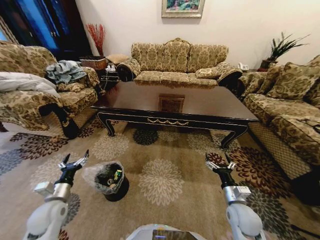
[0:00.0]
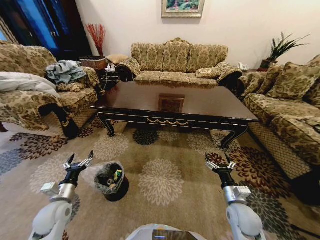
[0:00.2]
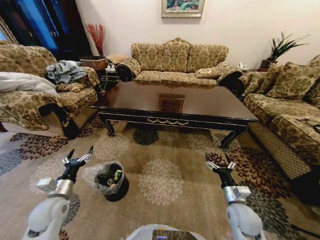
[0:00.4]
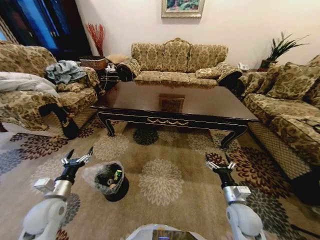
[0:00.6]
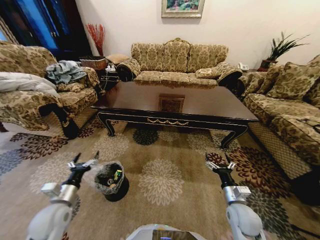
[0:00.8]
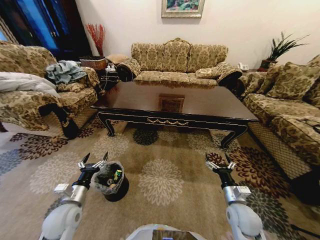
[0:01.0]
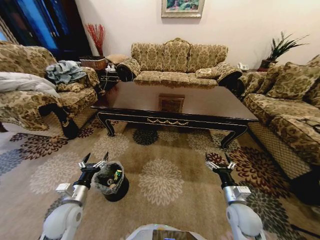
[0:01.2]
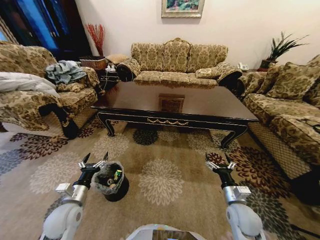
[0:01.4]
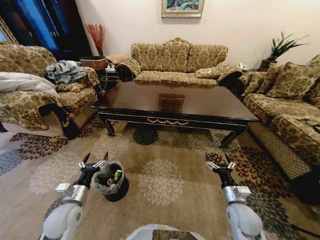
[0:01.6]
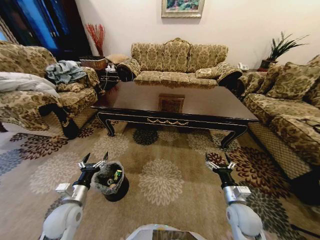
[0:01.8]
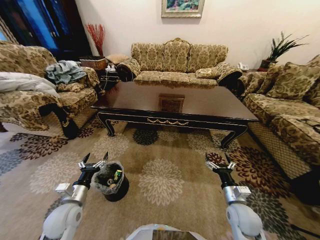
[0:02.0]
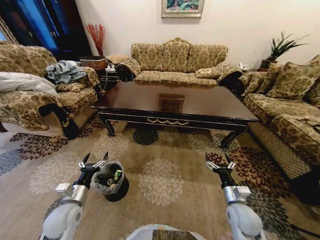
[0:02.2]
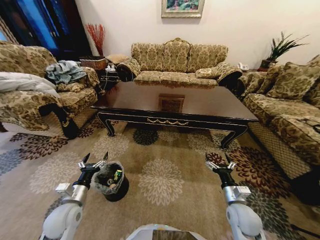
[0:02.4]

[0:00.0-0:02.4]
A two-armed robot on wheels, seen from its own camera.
Task of the whole recording: Move to the front of the table and place the trash on the table into the trash bin.
0:00.0 to 0:01.2: The left gripper shifts approximately 5 cm to the right.
0:01.2 to 0:02.4: The two grippers keep their place.

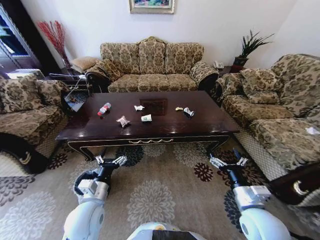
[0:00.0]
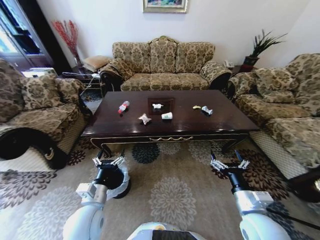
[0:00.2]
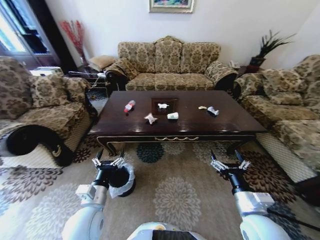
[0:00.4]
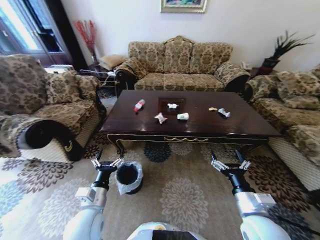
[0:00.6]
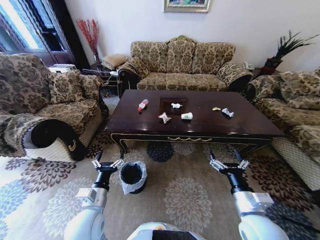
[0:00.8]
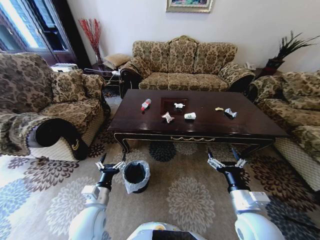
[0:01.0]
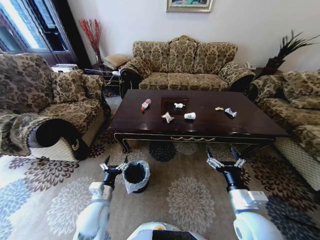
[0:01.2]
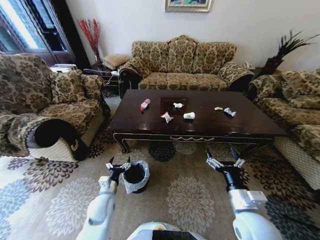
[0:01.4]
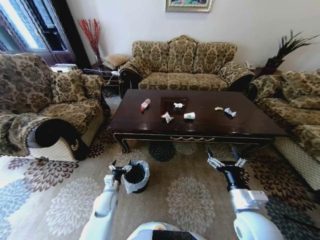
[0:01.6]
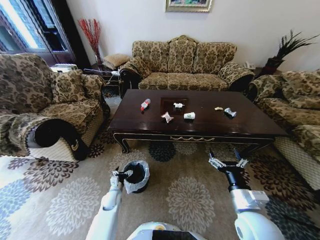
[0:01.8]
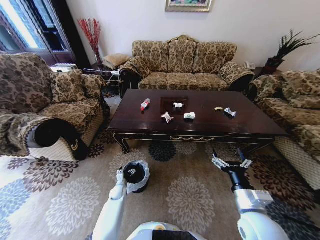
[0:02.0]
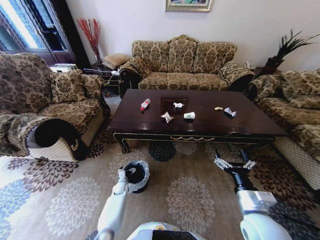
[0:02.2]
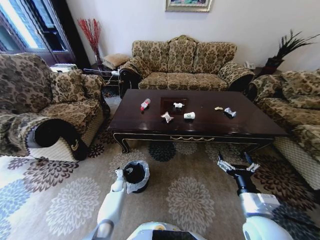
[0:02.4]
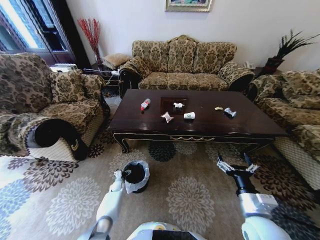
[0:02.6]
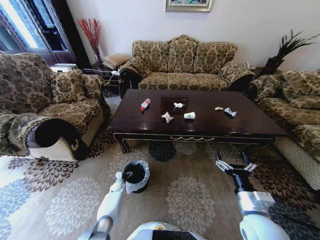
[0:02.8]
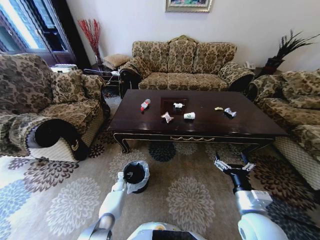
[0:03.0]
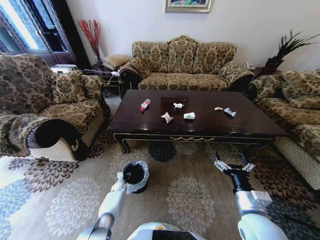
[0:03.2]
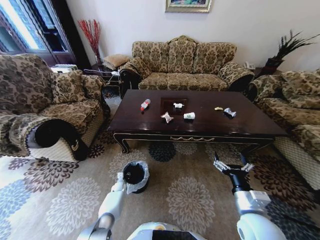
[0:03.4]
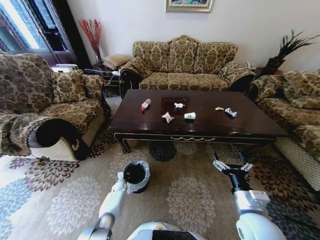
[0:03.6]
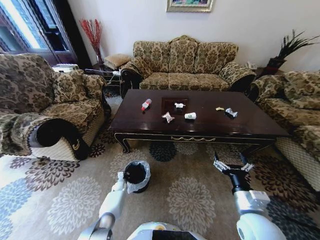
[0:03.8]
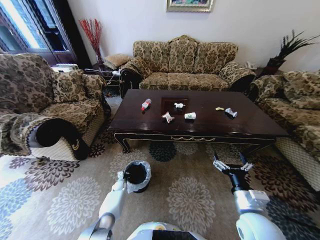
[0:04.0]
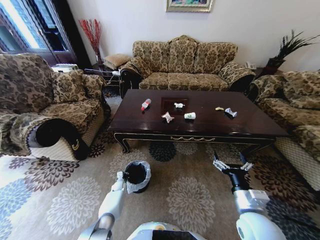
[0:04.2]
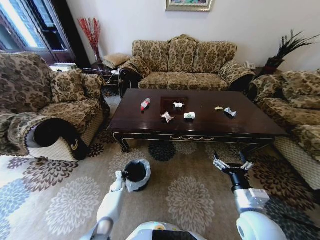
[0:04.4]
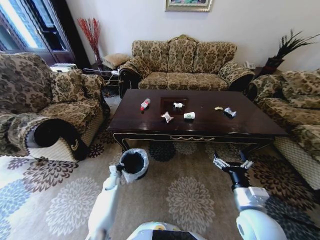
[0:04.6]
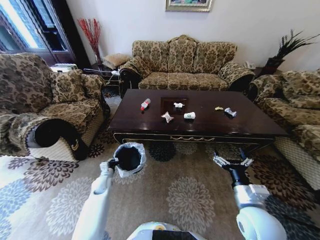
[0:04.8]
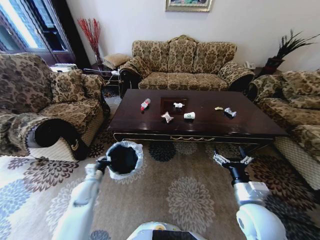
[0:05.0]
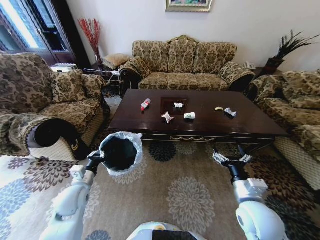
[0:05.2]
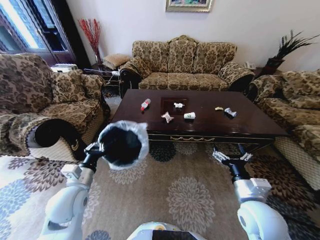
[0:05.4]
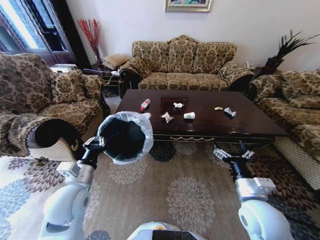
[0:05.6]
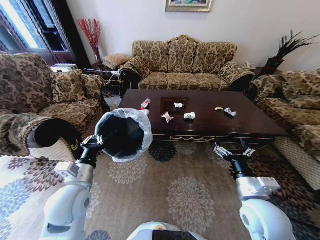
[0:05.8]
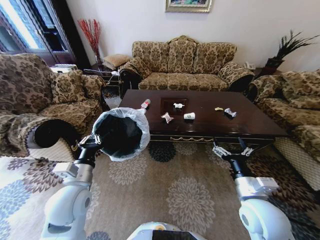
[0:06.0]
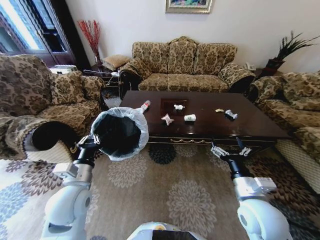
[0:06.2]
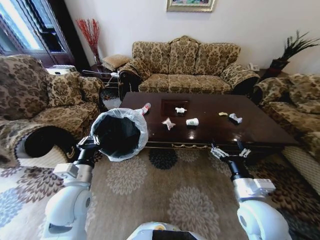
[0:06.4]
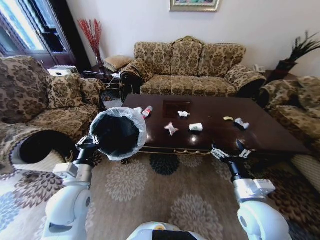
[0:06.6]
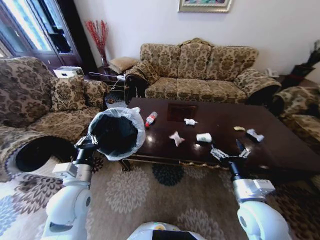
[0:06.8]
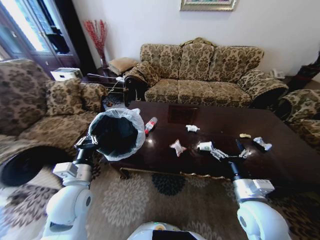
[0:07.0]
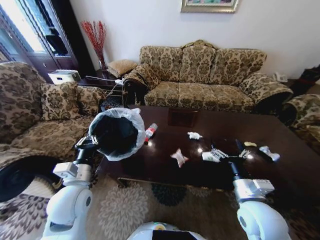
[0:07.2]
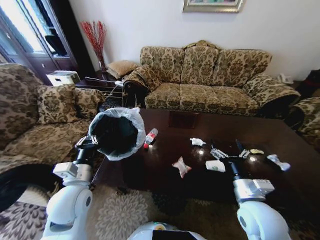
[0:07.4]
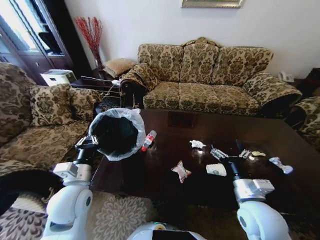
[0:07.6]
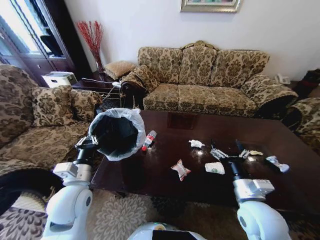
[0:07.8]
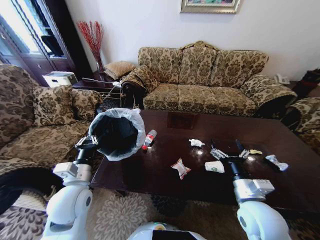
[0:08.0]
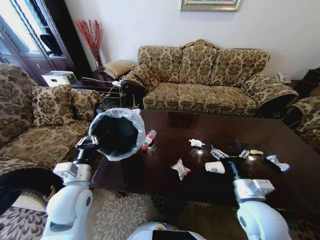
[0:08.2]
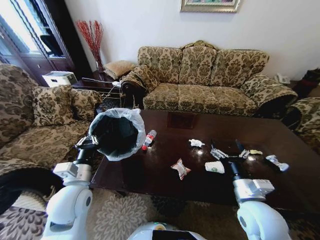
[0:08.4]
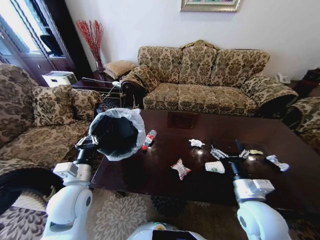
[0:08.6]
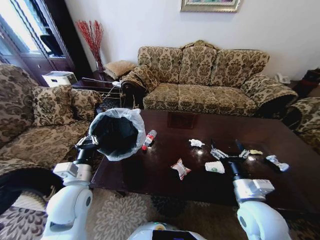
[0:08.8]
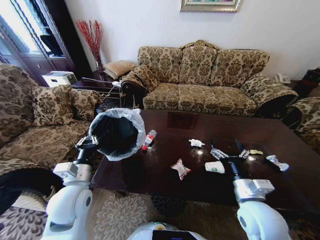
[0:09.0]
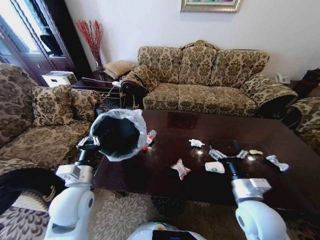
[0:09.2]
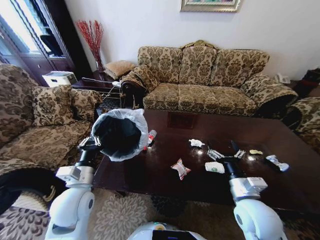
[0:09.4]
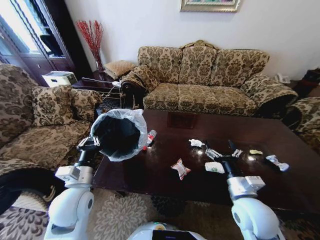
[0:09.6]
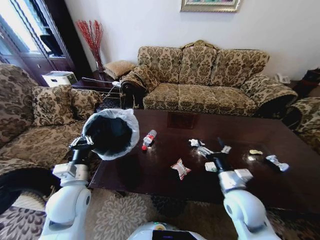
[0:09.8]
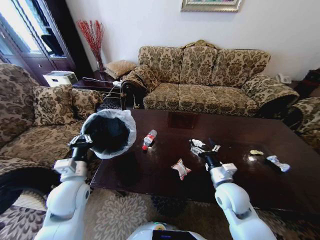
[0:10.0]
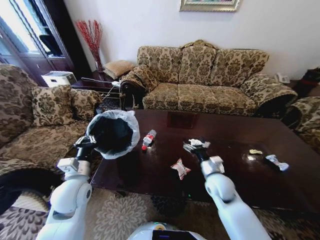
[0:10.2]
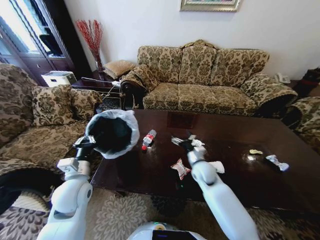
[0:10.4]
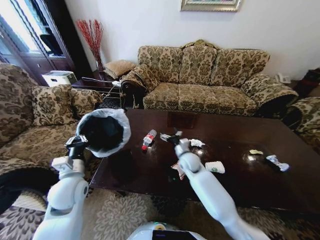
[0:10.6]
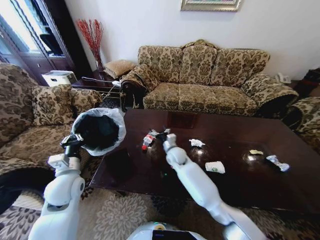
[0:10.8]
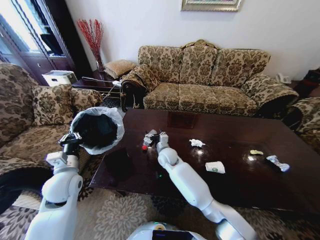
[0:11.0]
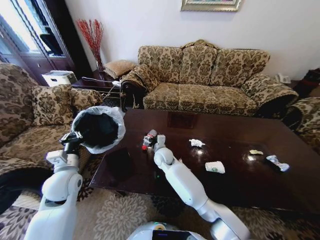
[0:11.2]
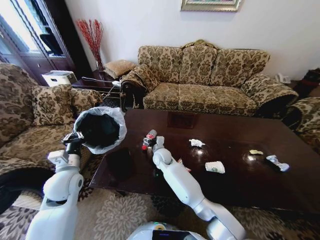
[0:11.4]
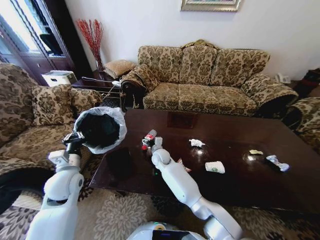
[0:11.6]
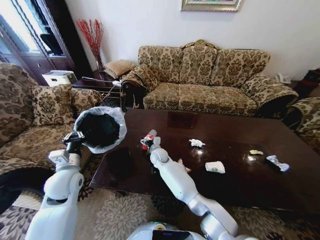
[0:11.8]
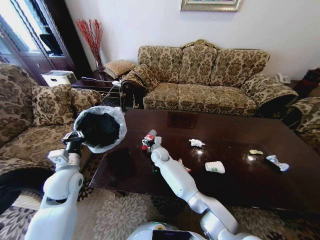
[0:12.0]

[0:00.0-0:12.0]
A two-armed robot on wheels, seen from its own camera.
Task of the whole recording: Move to the front of the table and place the trash on the table into the trash bin.
0:01.6 to 0:03.0: The left gripper shifts about 20 cm downward and forward.
0:03.0 to 0:04.4: The left gripper closes its fingers.
0:04.4 to 0:06.0: The left gripper heads upward and backward, covering some 50 cm.
0:07.6 to 0:09.0: Both grippers stay put.
0:09.0 to 0:10.4: The right gripper heads forward, to the left and downward, covering about 20 cm.
0:10.4 to 0:12.0: The right gripper is displaced to the left and forward by about 20 cm; the left gripper shifts by about 5 cm.

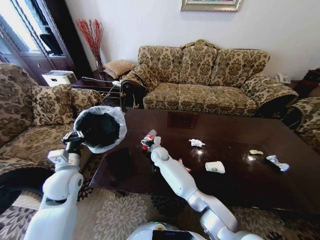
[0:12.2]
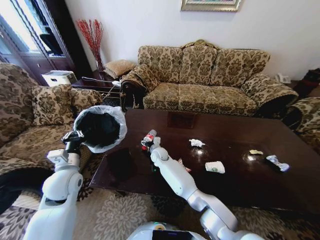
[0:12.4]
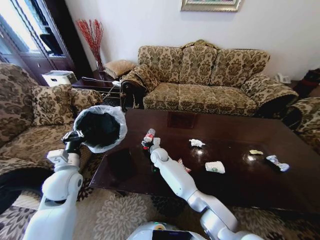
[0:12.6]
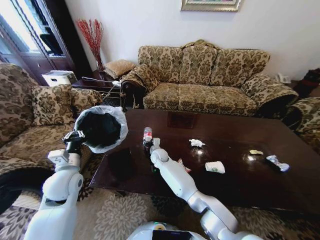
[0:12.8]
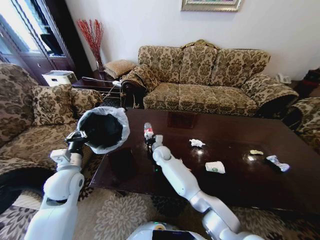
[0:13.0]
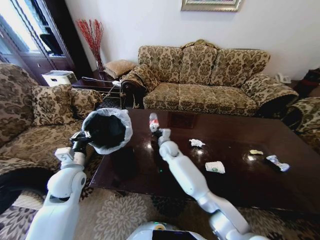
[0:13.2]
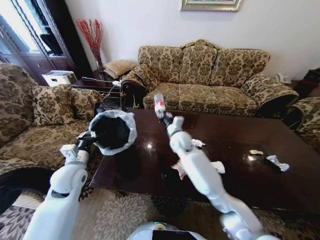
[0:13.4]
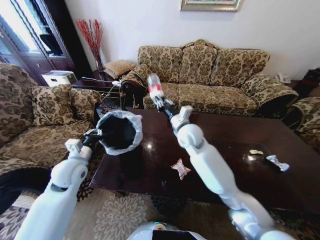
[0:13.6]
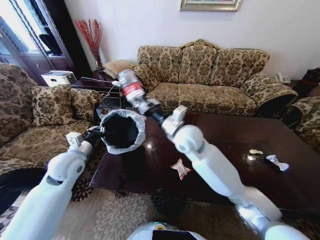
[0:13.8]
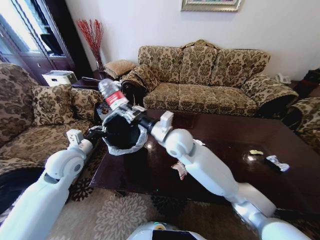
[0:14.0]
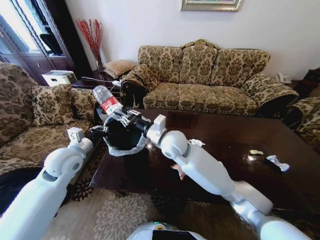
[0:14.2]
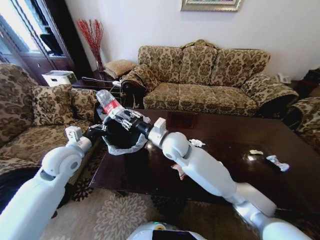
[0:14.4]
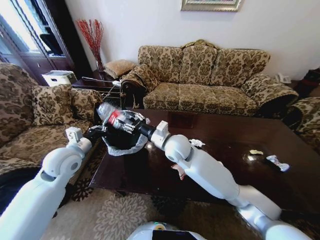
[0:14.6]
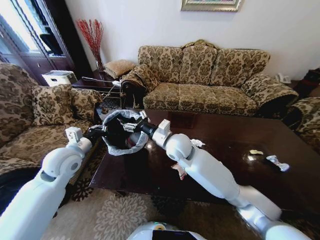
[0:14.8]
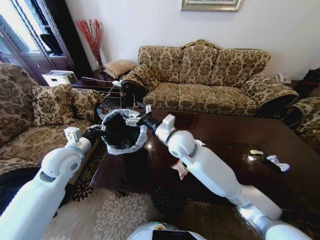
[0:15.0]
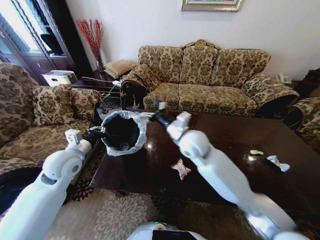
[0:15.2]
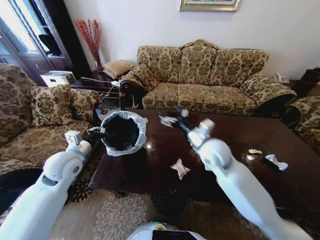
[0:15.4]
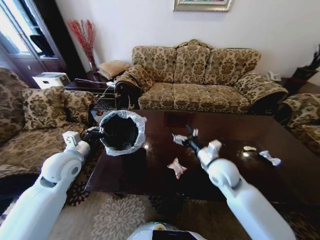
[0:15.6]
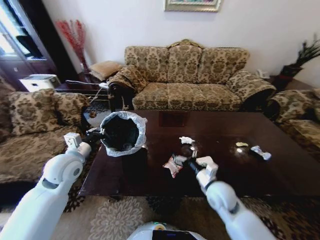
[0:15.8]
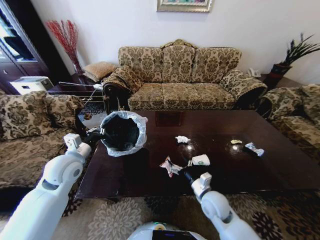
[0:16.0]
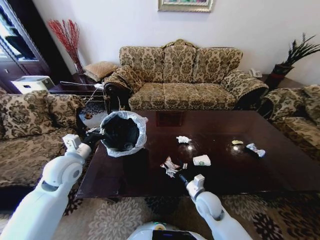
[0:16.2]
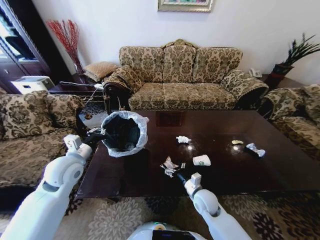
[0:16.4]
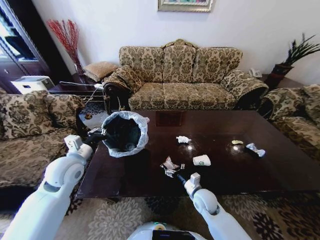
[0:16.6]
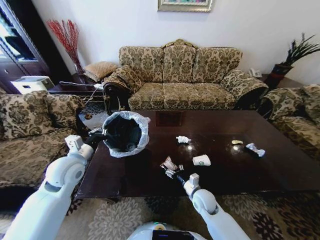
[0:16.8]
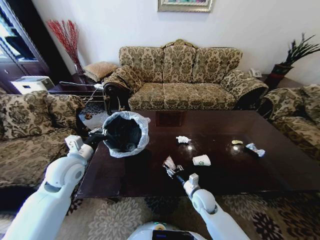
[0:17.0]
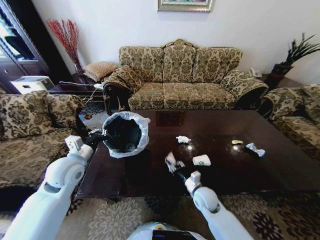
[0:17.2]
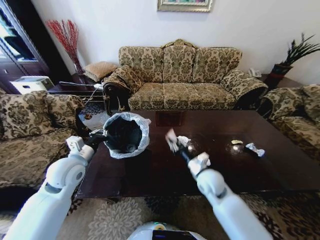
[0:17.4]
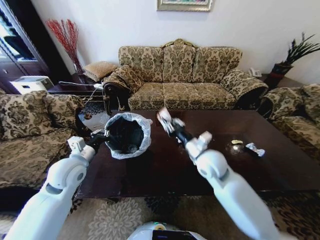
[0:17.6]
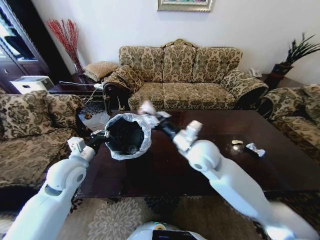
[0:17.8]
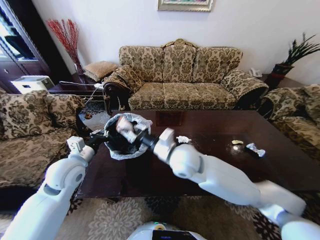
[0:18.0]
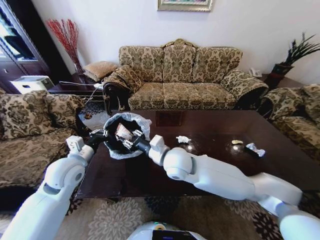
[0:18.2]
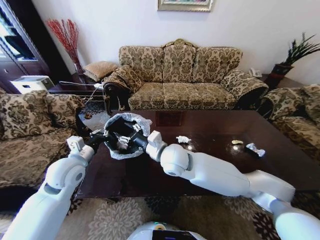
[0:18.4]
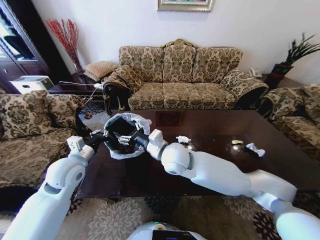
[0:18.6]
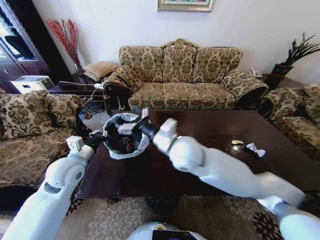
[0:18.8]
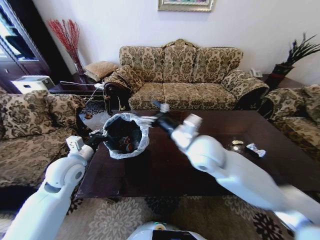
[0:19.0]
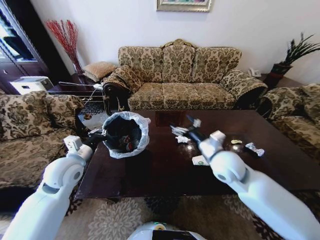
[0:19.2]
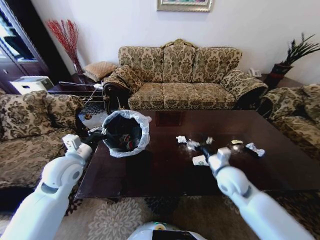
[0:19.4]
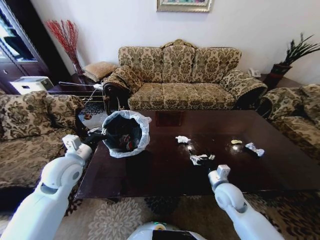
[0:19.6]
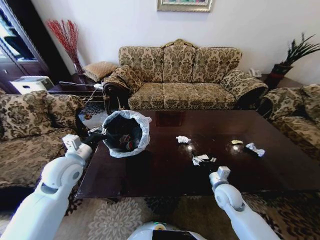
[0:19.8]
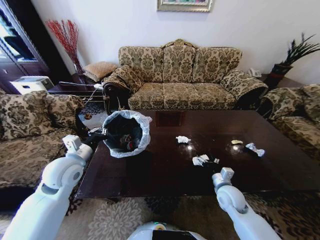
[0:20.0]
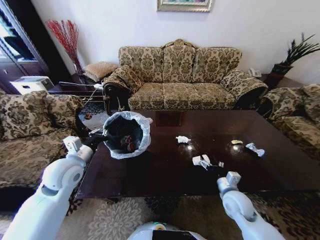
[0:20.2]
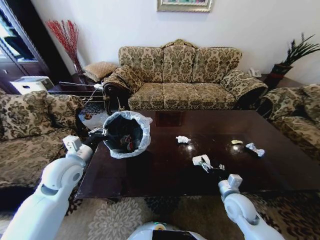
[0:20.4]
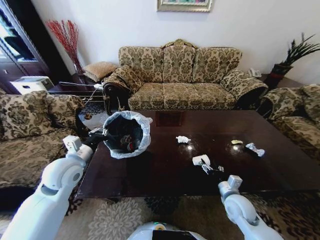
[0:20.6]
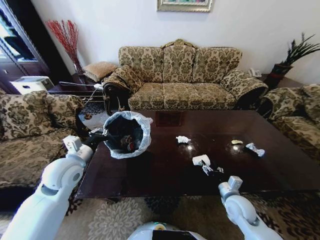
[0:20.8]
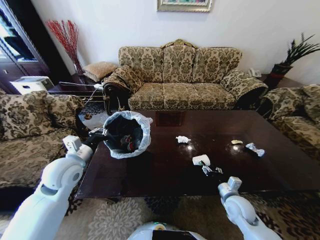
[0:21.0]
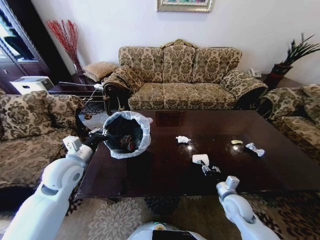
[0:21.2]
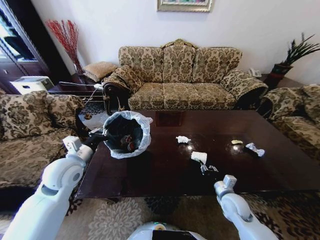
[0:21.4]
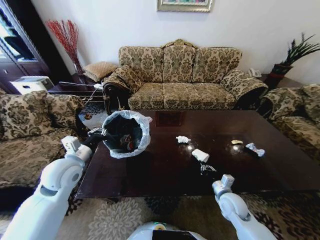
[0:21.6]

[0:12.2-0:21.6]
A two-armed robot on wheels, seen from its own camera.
Task of the whole recording: Move to the front of the table and place the trash on the table into the trash bin.
0:12.2 to 0:13.8: The right gripper shifts some 25 cm upward, and closes. The left gripper ends up roughly 5 cm from where it was.
0:13.8 to 0:15.4: The right gripper travels to the right by about 10 cm, and opens its fingers.
0:15.4 to 0:17.0: The right gripper heads downward, covering approximately 25 cm, and closes up.
0:17.0 to 0:18.4: The right gripper goes approximately 30 cm upward and to the left, and closes, then reopens.
0:18.4 to 0:20.0: The right gripper travels to the right and downward by roughly 35 cm.
0:20.0 to 0:21.6: The right gripper closes up.
